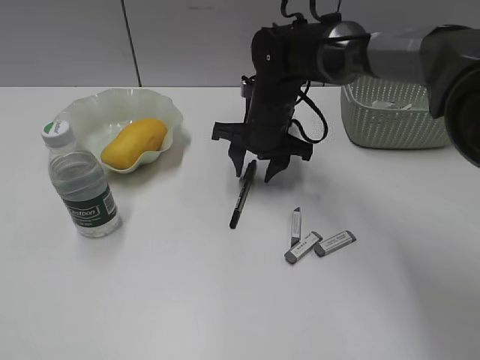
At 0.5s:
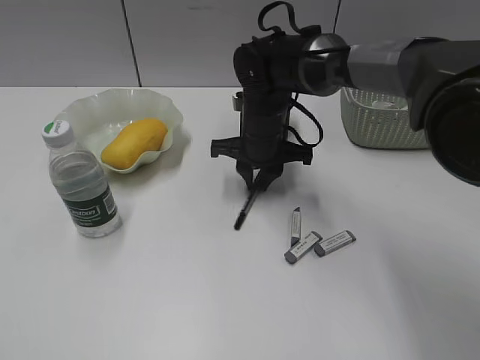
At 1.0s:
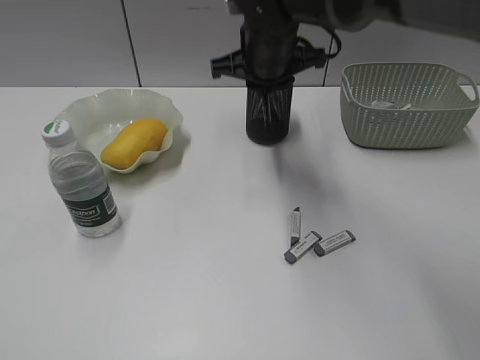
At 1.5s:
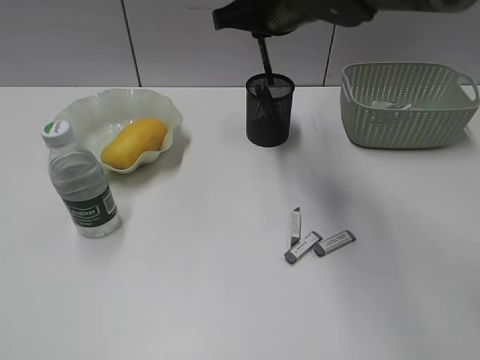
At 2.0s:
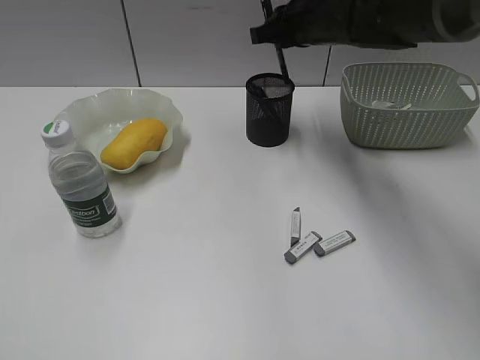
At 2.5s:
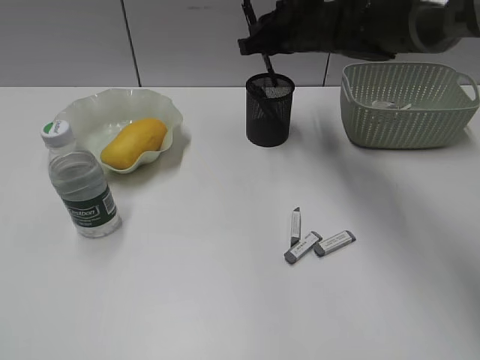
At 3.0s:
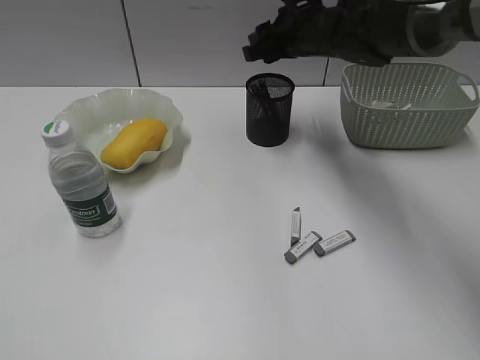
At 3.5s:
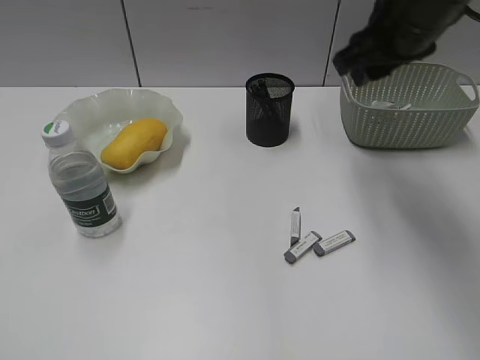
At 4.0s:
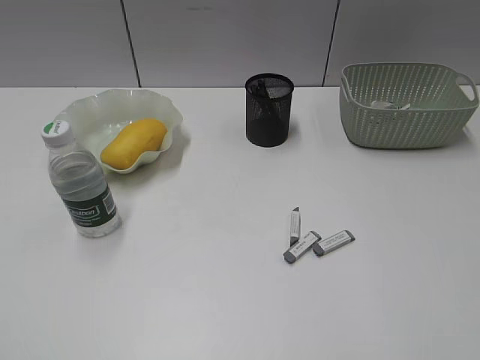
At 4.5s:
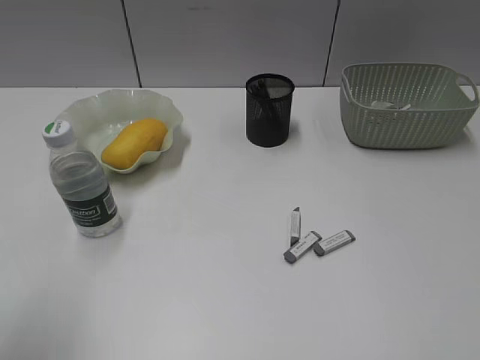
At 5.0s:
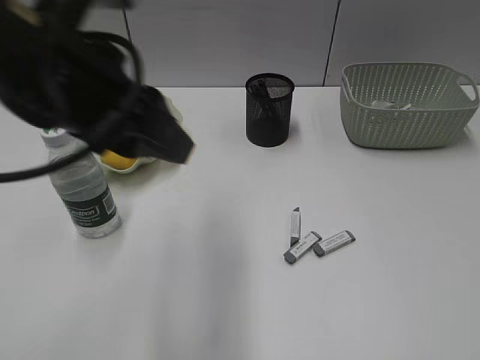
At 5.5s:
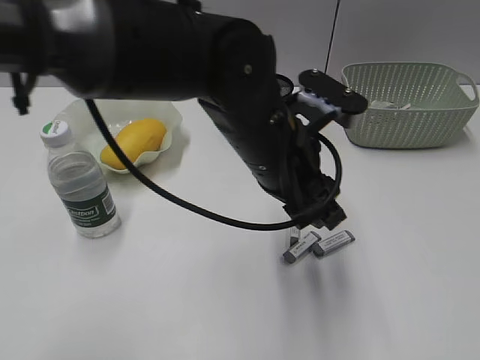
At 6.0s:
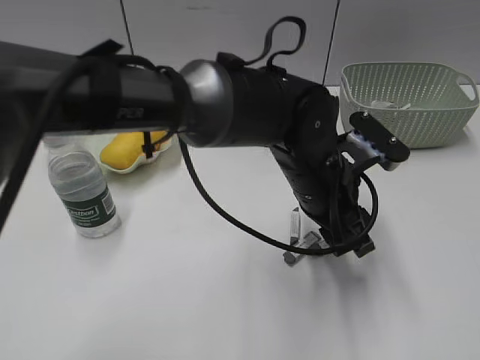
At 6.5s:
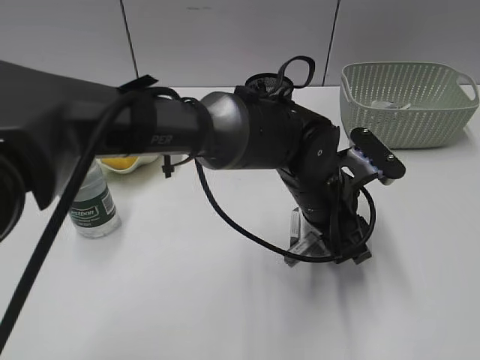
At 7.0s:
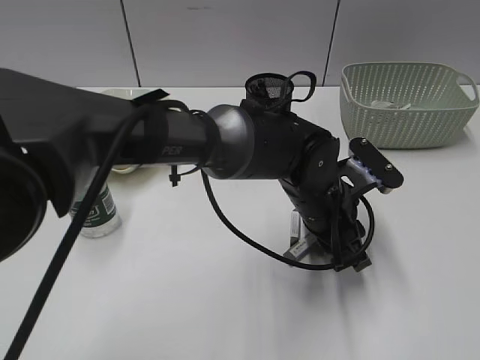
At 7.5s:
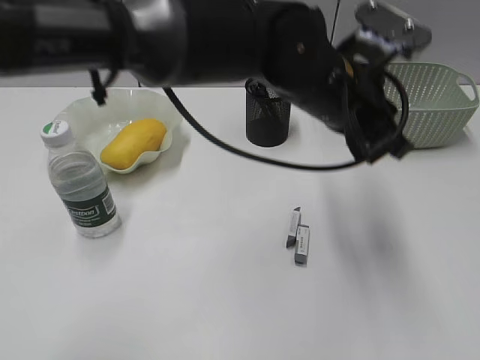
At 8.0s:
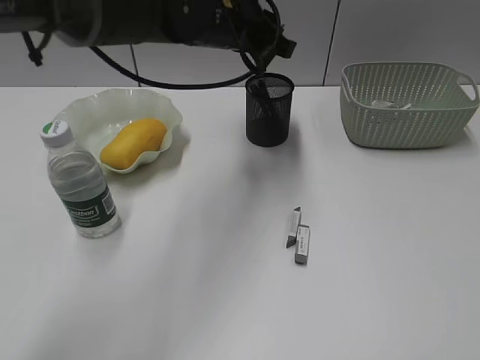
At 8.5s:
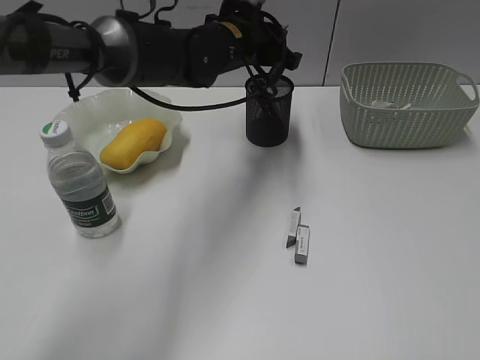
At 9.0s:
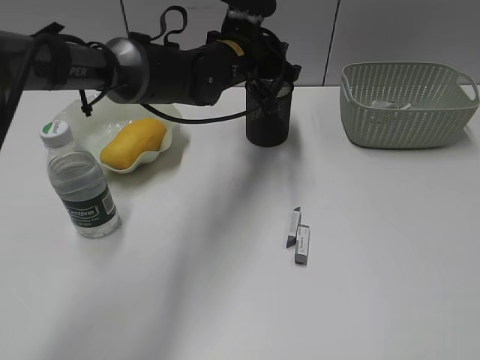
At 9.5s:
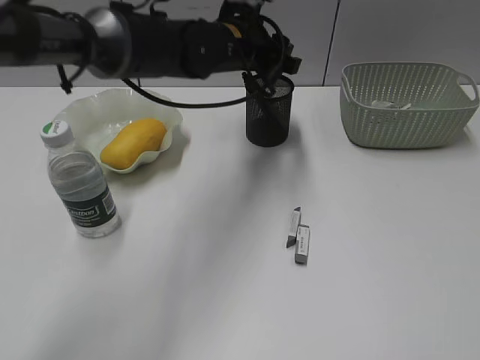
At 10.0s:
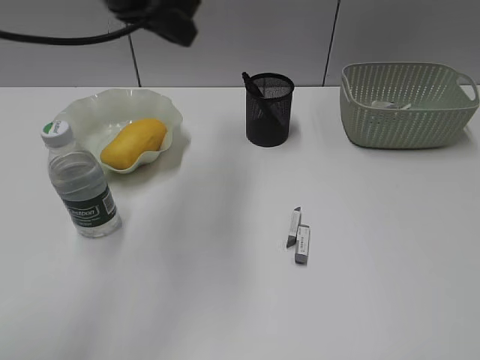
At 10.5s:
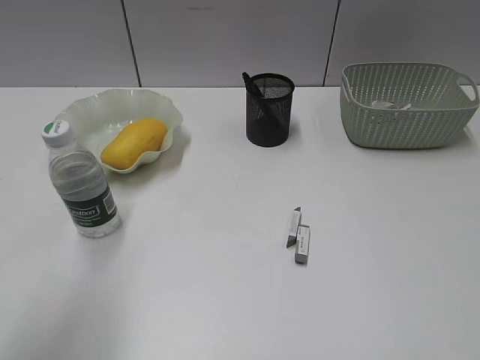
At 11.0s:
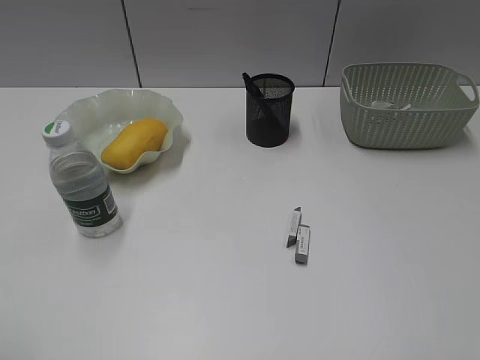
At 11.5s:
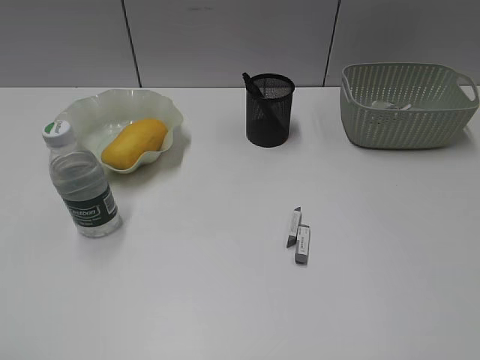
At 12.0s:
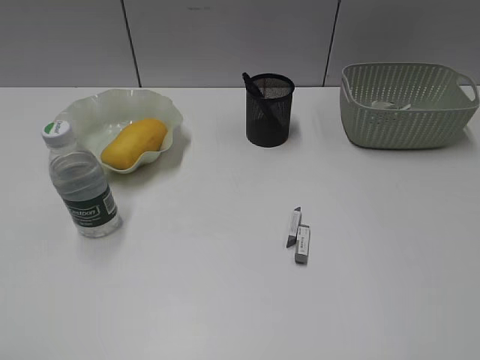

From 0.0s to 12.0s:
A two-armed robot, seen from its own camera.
Step, from 3.0s to 7.0s: Grasp the eraser with left gripper.
Step, from 7.5s to 9.5s: Place the eraser in pen holder with left gripper.
From 0.0s to 2.0s: The right gripper goes about 10 cm upward and to the right, and closes up.
From 2.0s to 4.0s: The right gripper moves backward and to the right, approximately 40 cm, and opens its fingers.
From 4.0s to 6.0s: The left gripper moves to the right and forward, roughly 50 cm, and opens. The right gripper goes approximately 10 cm backward.
From 6.0s to 8.0s: The left gripper shifts some 20 cm forward, upward and to the left, and closes.
From 8.0s to 10.0s: The left gripper shifts roughly 15 cm to the left, upward and backward, and opens, then closes again.
From 10.0s to 12.0s: The left gripper travels backward and to the left by approximately 40 cm.

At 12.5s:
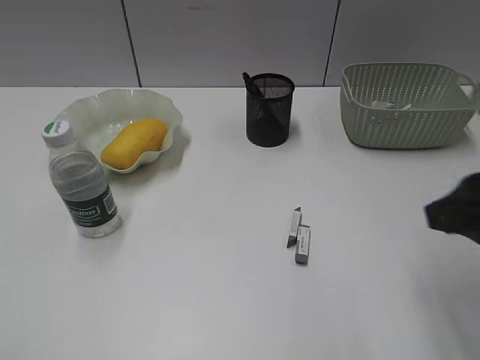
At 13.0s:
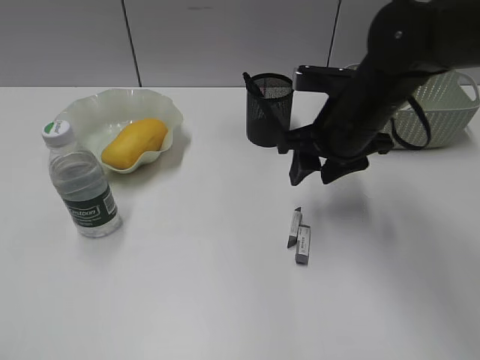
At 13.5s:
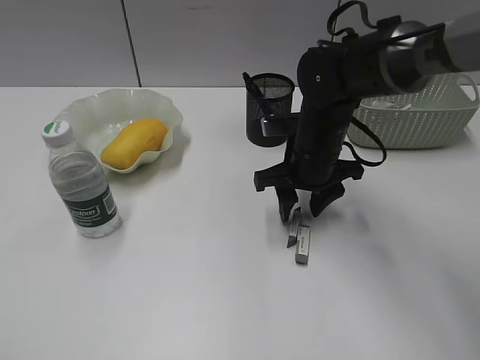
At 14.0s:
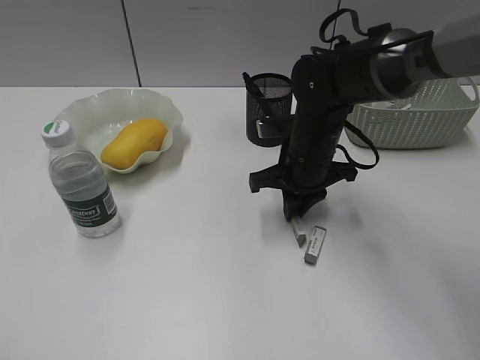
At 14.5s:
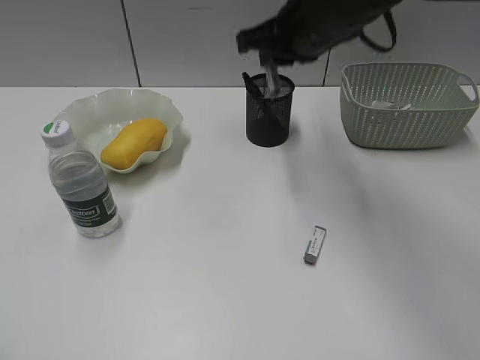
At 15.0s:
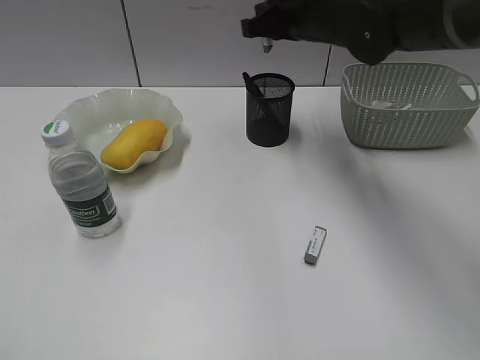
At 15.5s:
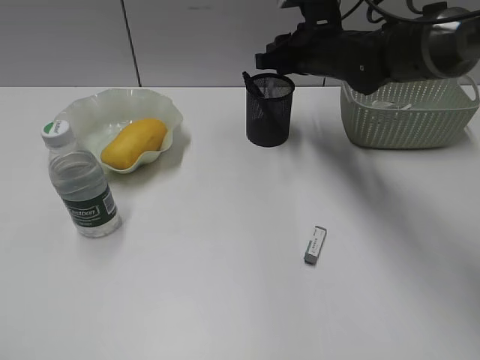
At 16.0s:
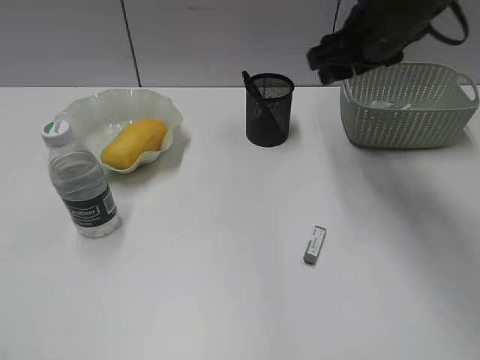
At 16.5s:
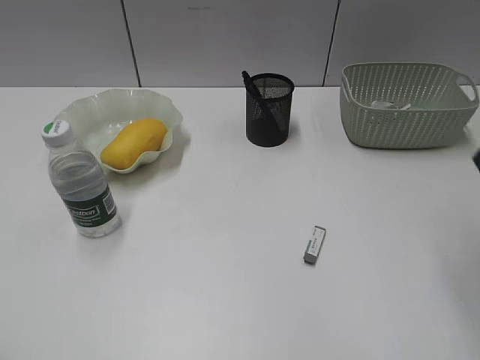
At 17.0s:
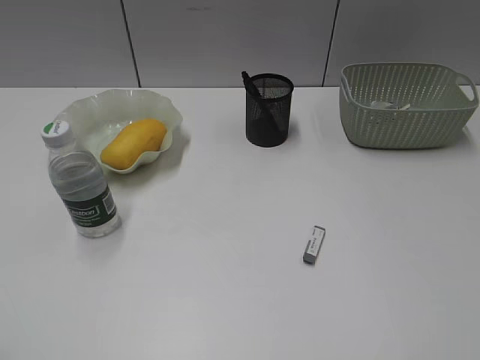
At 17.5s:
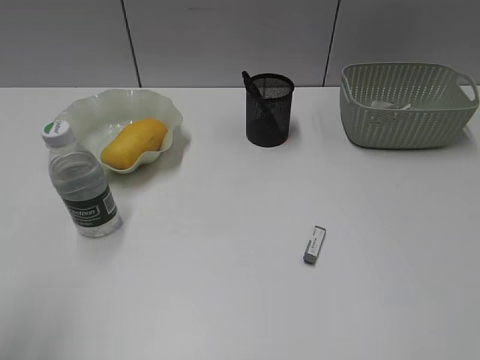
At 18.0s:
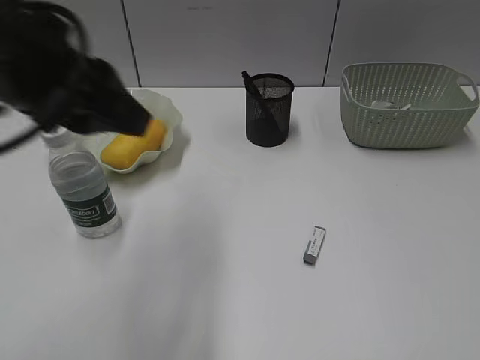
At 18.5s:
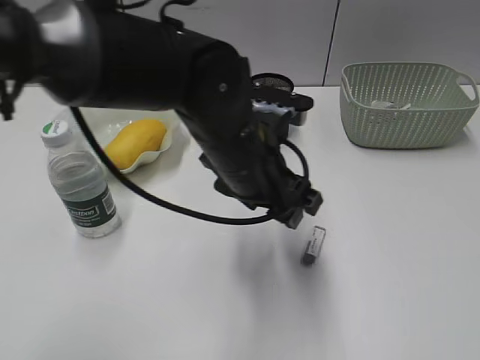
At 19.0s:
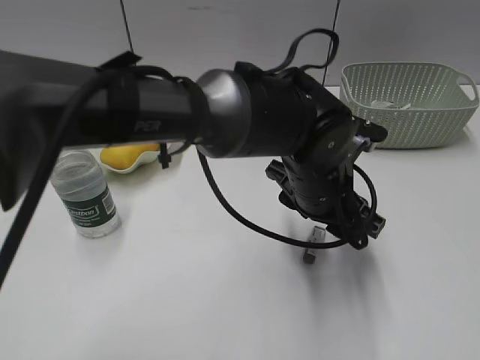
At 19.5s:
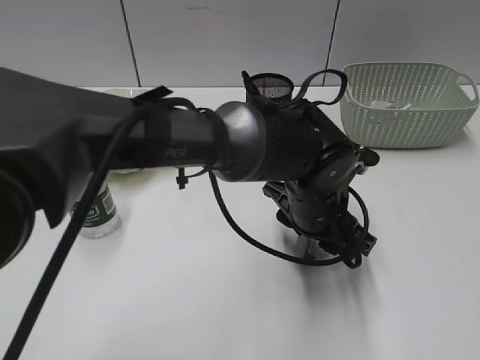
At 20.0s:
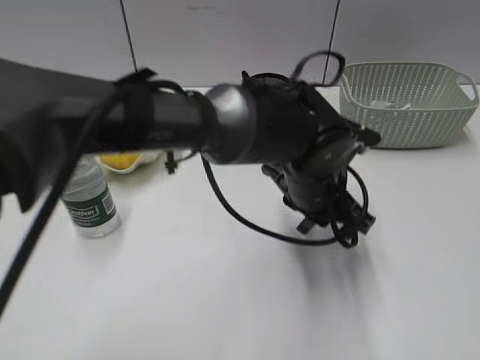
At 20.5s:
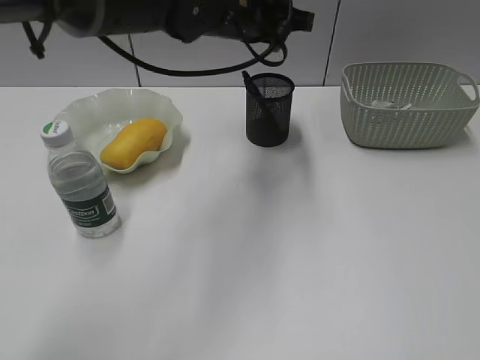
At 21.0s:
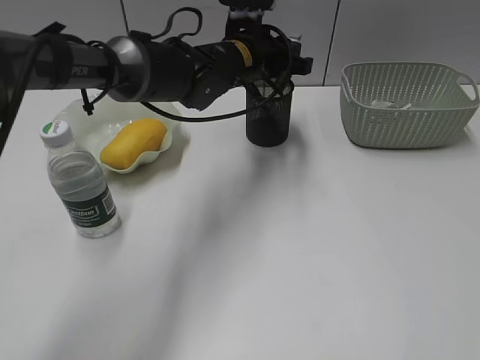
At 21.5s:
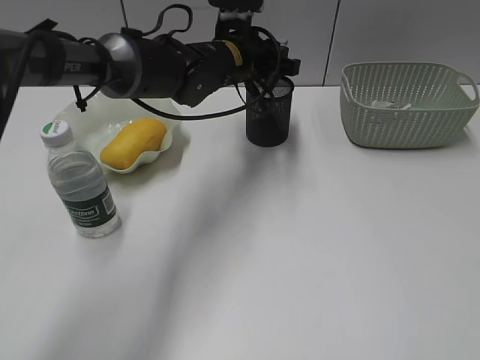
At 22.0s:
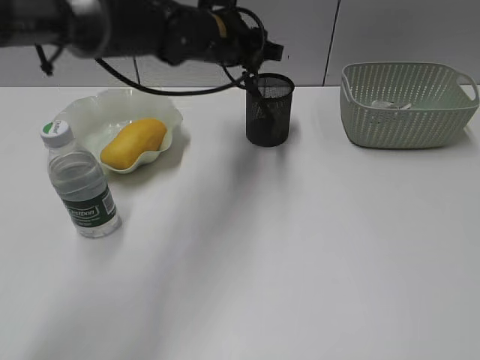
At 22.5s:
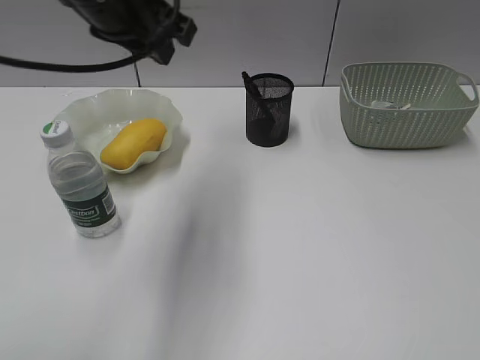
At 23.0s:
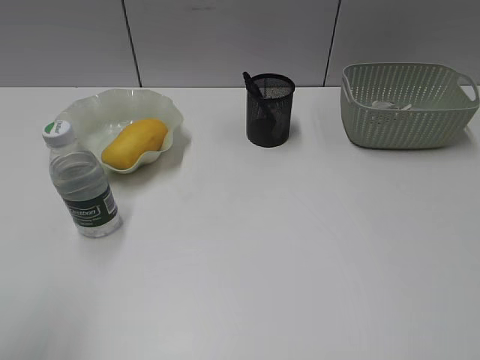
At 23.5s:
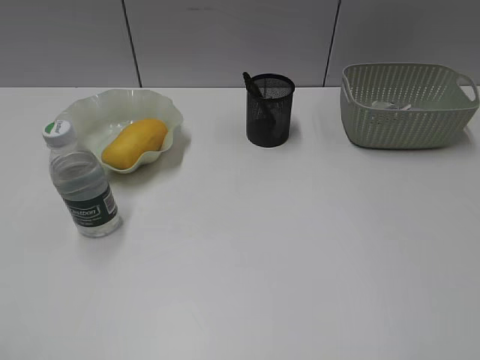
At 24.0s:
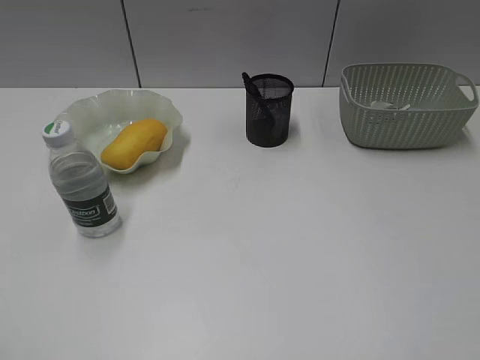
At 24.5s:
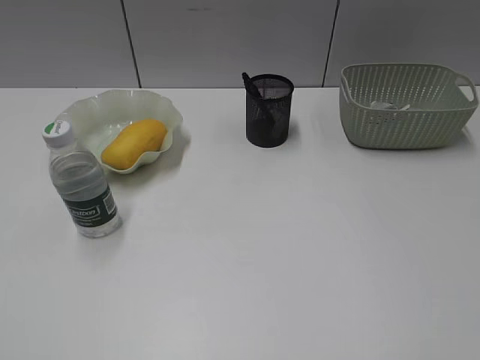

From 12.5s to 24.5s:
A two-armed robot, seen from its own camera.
Step, from 16.0s to 19.5s: Grasp the eraser with left gripper.
Step, from 20.0s to 21.5s: Place the eraser in pen holder with left gripper.
From 12.5s to 14.5s: The right gripper goes some 25 cm forward and to the left, and closes its fingers.
From 14.5s to 16.5s: The right gripper travels backward, to the right and upward by about 25 cm, and opens.
From 16.5s to 18.5s: The left gripper goes about 40 cm to the right and forward, and opens its fingers; the right gripper is displaced backward and to the right by about 25 cm.
From 18.5s to 20.5s: The left gripper heads forward and upward, covering roughly 15 cm, and closes its fingers.
From 20.5s to 22.5s: The left gripper goes some 15 cm to the left, backward and upward.
From 22.5s to 24.5s: The left gripper heads backward and to the left, covering approximately 40 cm.

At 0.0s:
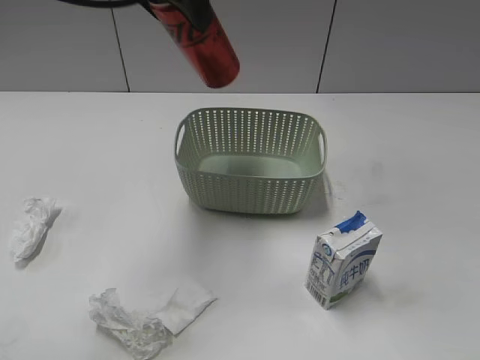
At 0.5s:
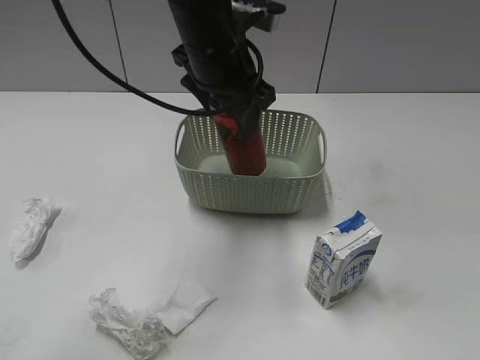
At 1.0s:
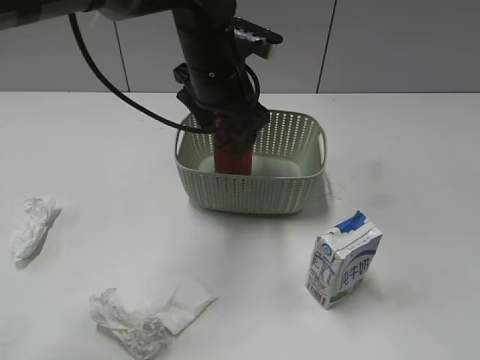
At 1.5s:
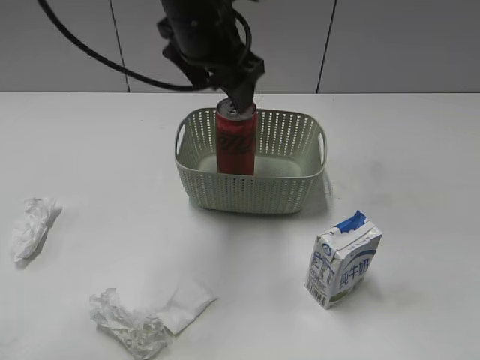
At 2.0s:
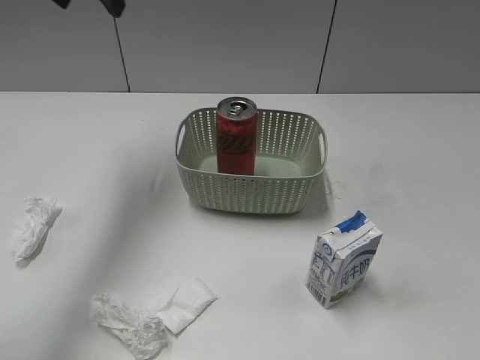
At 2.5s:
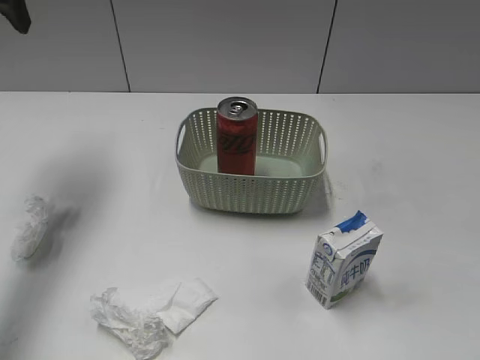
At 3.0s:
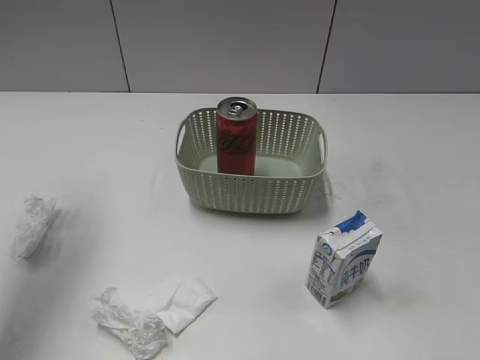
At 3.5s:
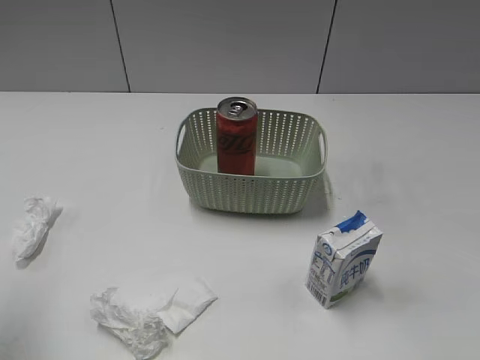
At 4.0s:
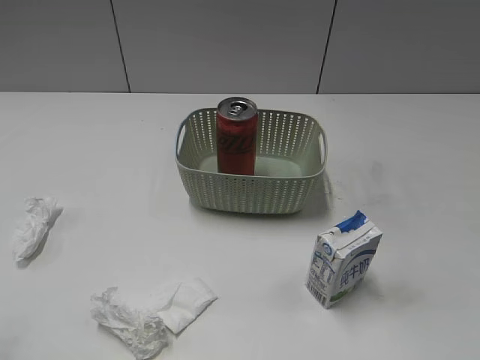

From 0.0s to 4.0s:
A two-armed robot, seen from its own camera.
Step, from 0.0s to 1.5s: Place the cola can in the basket with left gripper.
From 0.0s to 2.0s: The left gripper goes about 10 cm to the left and forward.
From 2.0s to 4.0s: The left gripper goes about 35 cm backward.
